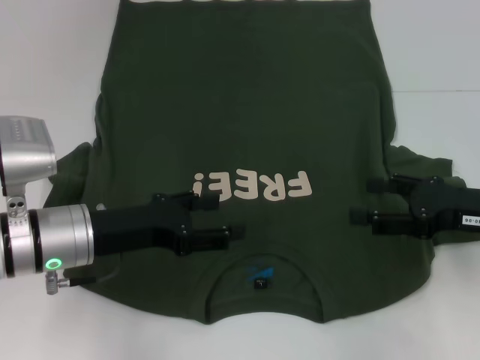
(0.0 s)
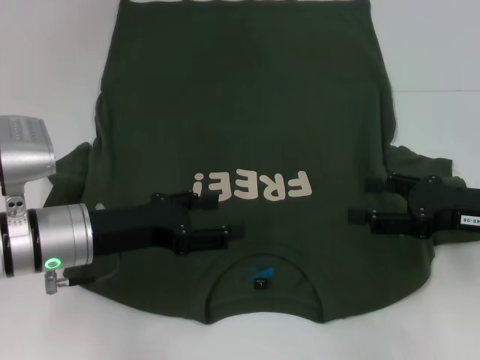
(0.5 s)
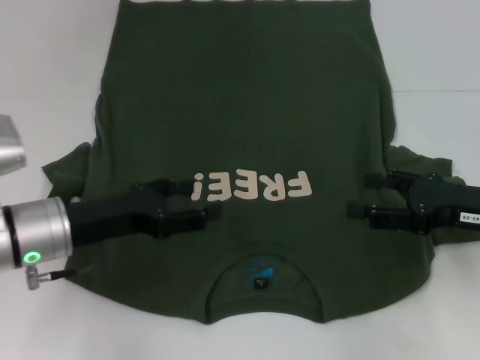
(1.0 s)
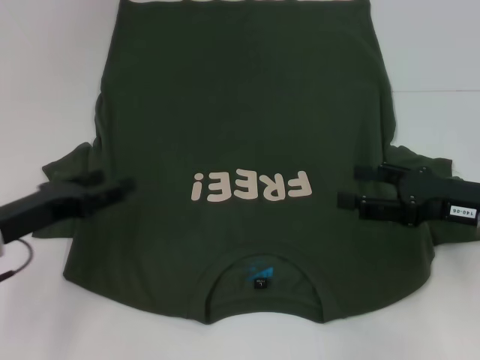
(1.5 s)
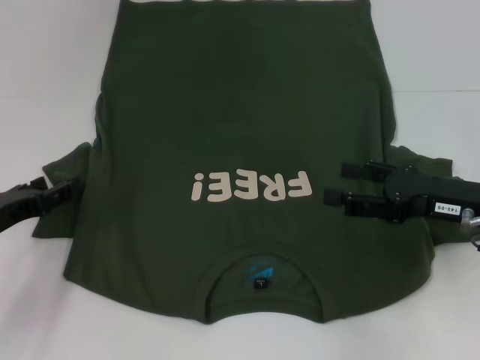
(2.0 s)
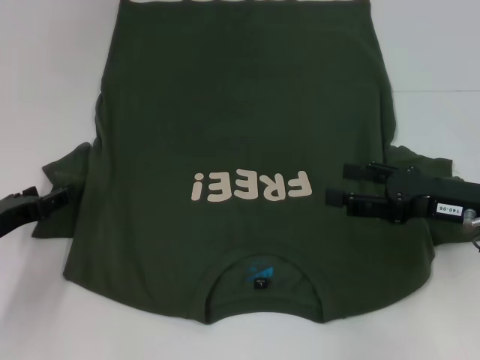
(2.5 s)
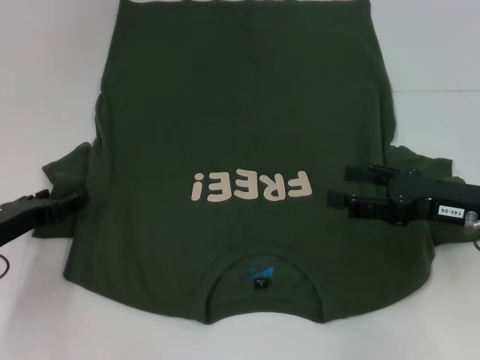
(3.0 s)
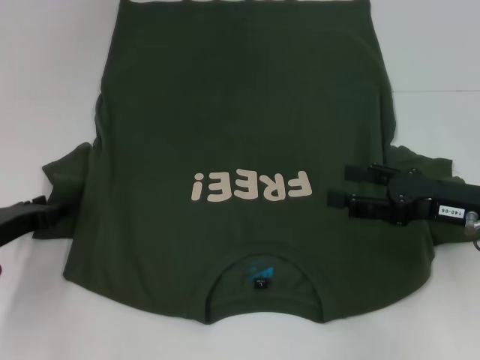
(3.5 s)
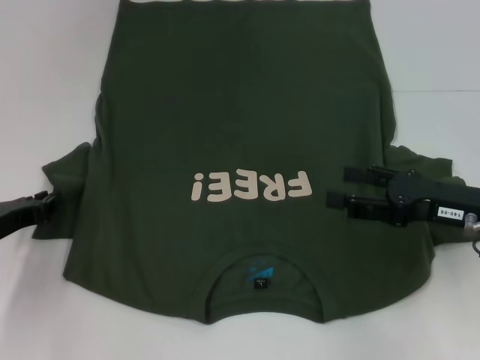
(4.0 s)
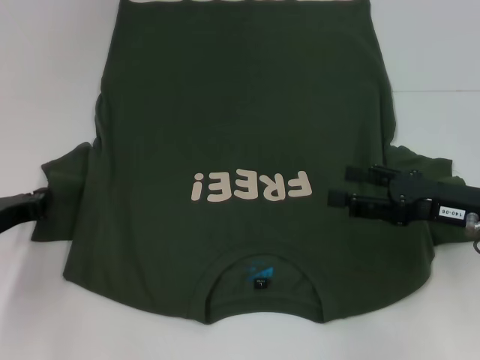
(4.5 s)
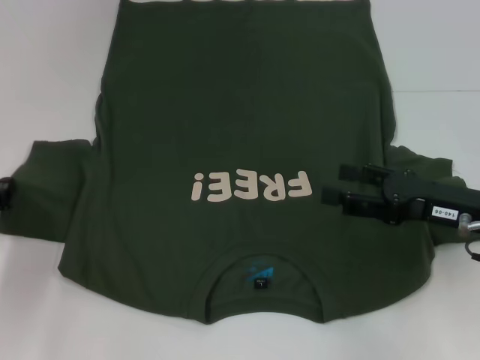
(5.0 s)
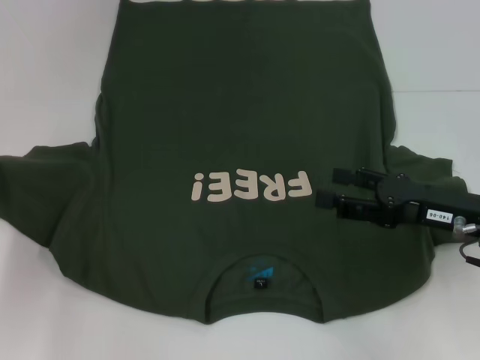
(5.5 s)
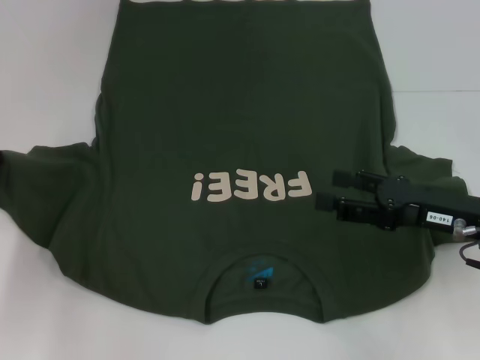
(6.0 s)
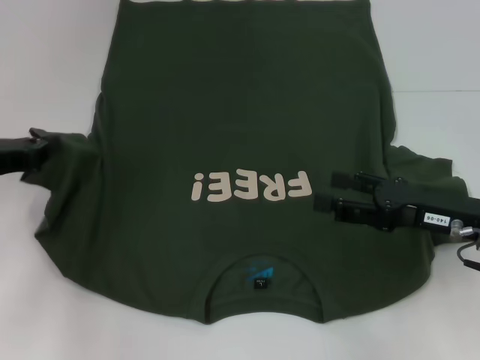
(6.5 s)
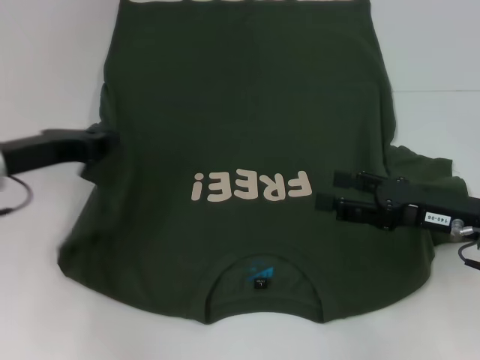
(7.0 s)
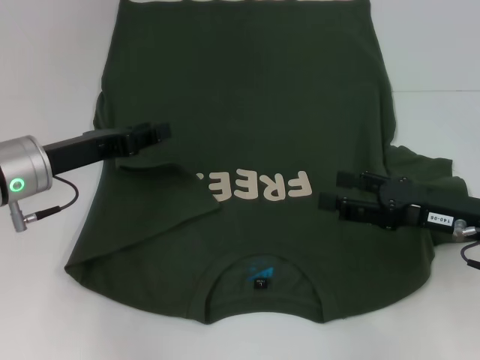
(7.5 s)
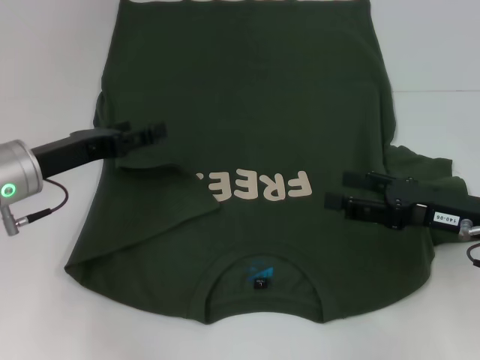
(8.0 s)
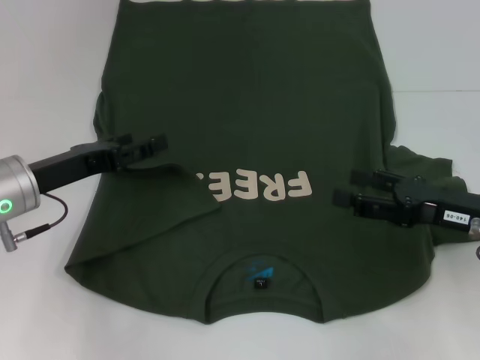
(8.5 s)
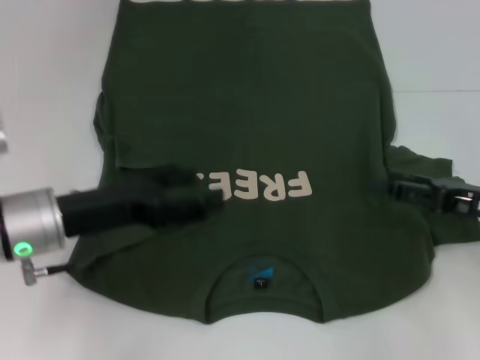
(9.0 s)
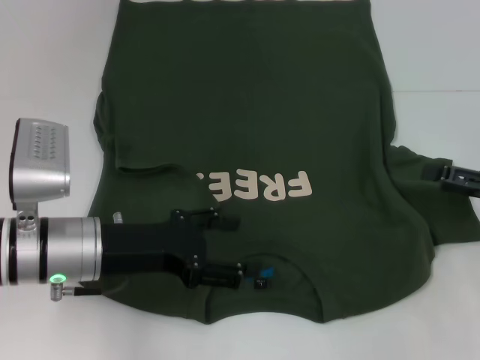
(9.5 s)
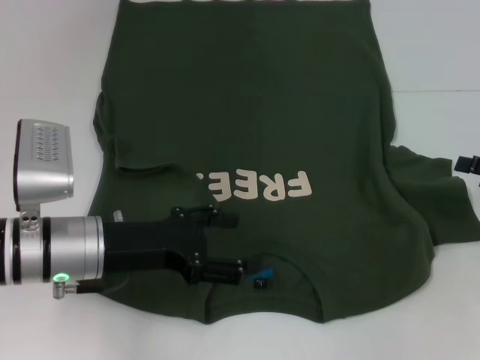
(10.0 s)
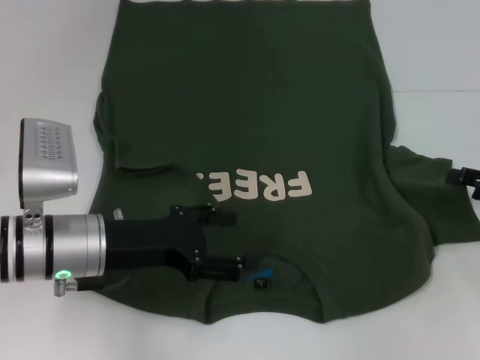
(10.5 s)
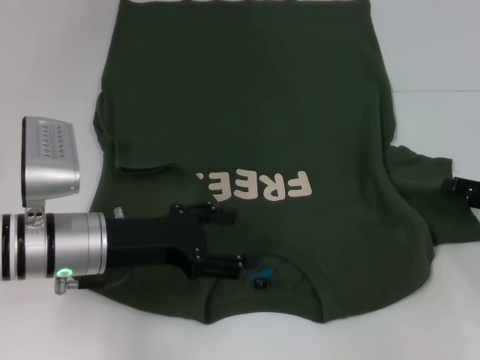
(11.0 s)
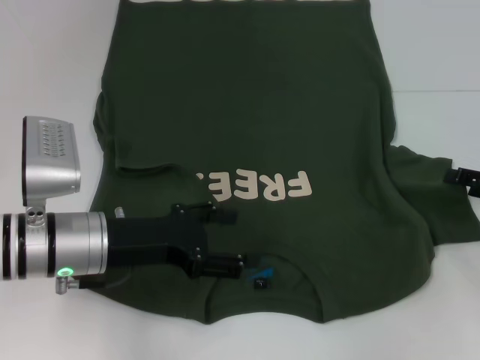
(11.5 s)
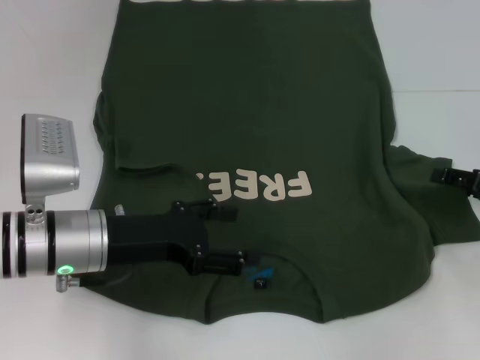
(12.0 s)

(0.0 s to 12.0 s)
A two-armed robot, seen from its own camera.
Step, 0.0 s - 8.0 s: Fold the bottom left sleeve with your left hand.
0.0 s - 2.0 s: The left gripper moves to the left, about 10 cm.
2.0 s - 4.0 s: The left gripper closes up.
4.0 s - 6.0 s: The left gripper changes place by approximately 5 cm, and closes its fingers.
6.0 s - 8.0 s: The left gripper shifts approximately 10 cm to the right, and opens.
8.0 s - 10.0 s: The left gripper moves to the right, approximately 5 cm. The right gripper travels to the right by approximately 10 cm.
10.0 s - 12.0 s: The grippers stay close to where they were, moving slightly.

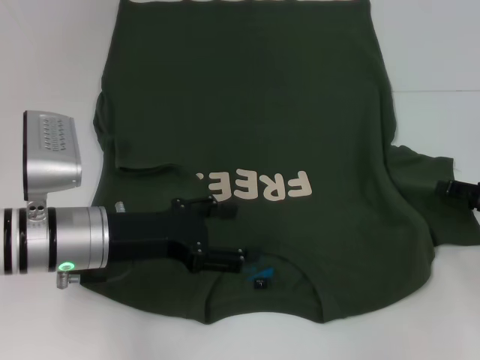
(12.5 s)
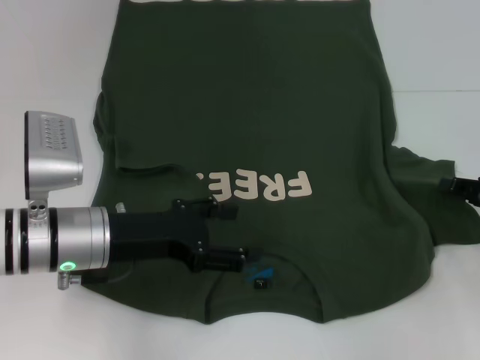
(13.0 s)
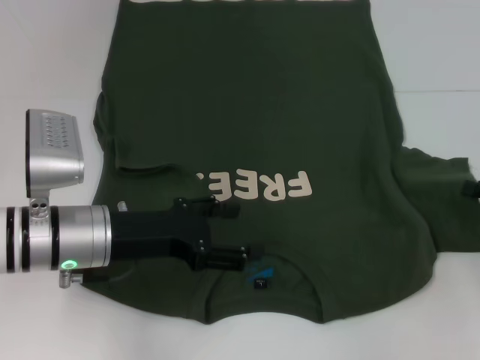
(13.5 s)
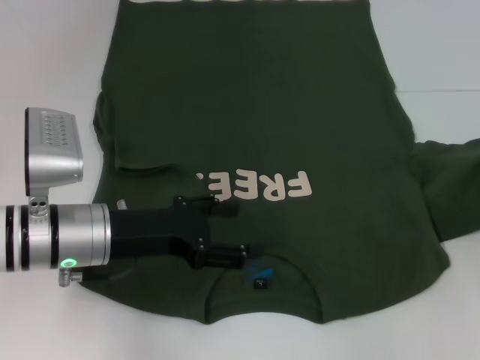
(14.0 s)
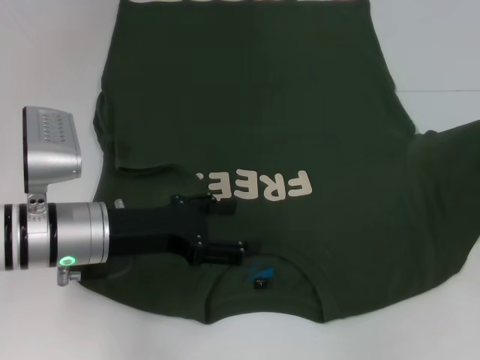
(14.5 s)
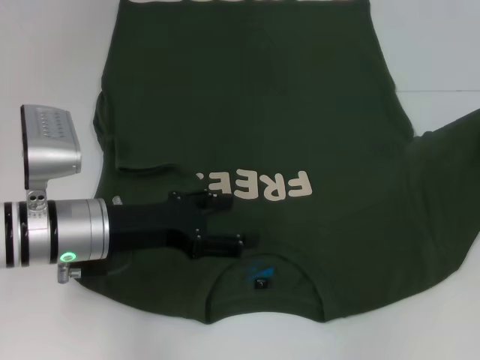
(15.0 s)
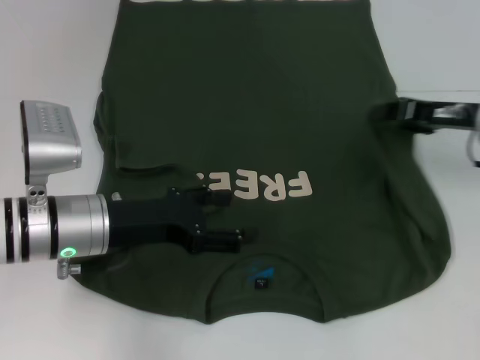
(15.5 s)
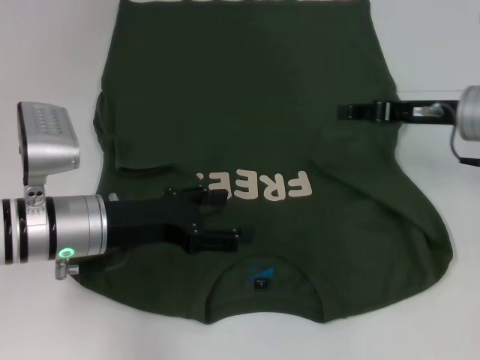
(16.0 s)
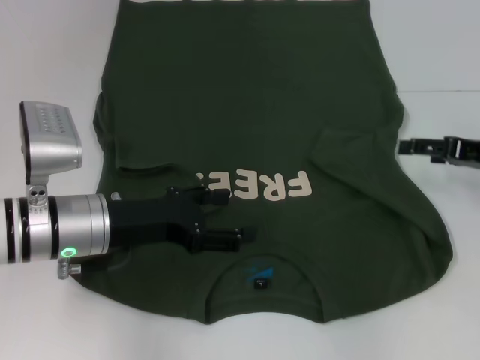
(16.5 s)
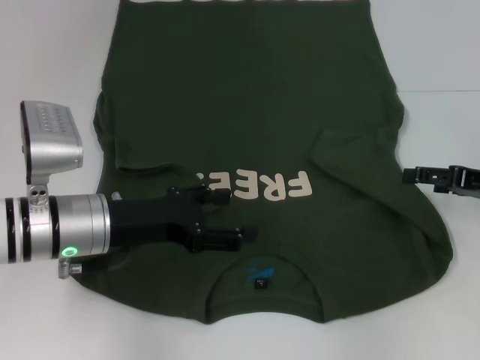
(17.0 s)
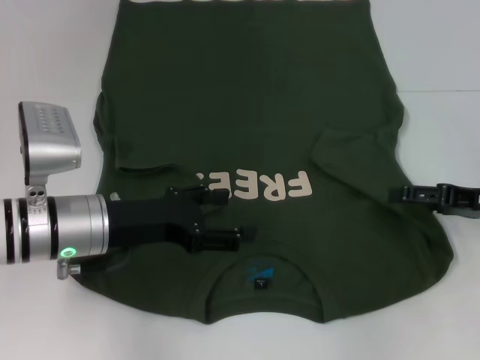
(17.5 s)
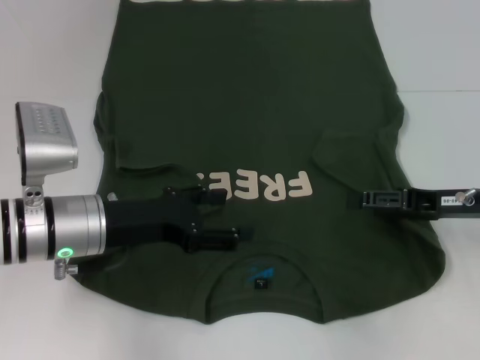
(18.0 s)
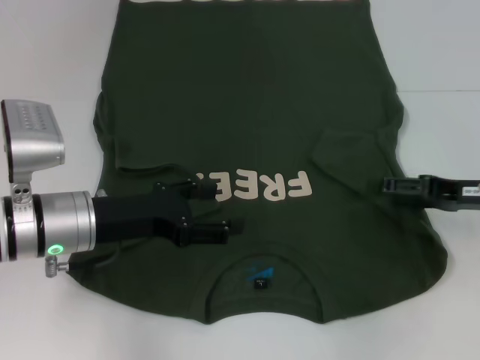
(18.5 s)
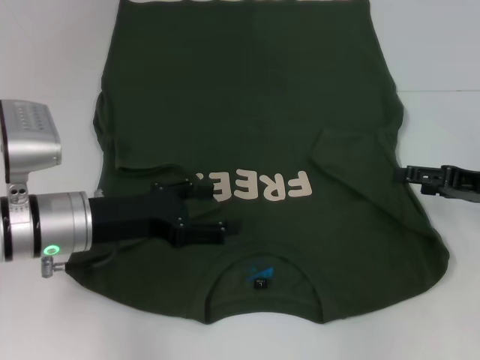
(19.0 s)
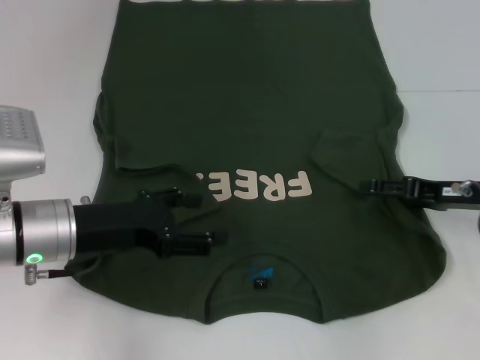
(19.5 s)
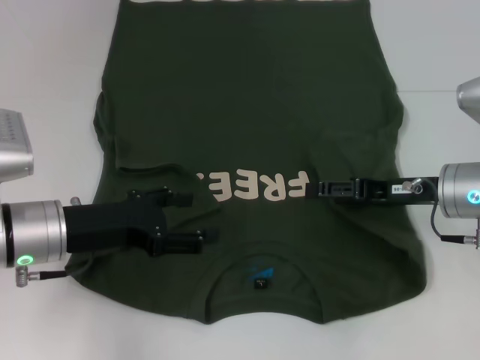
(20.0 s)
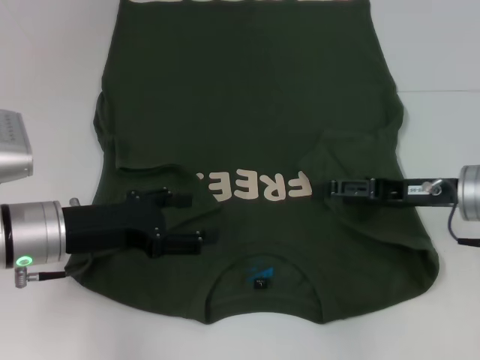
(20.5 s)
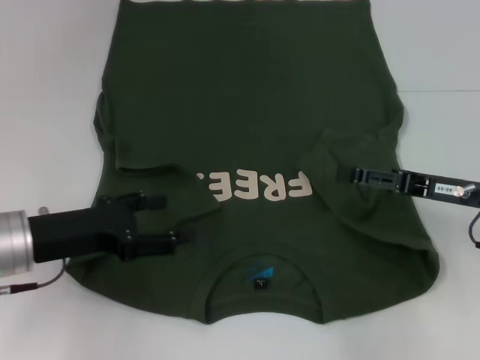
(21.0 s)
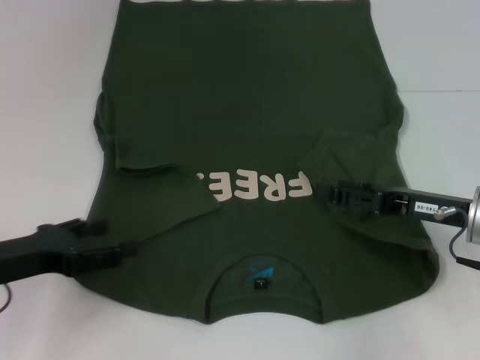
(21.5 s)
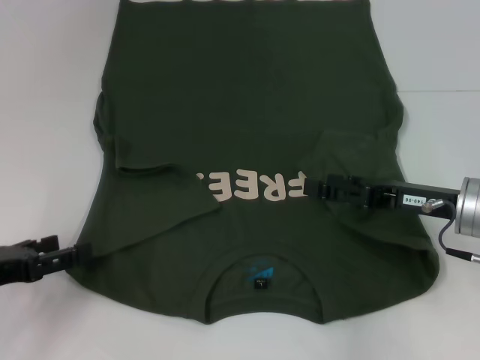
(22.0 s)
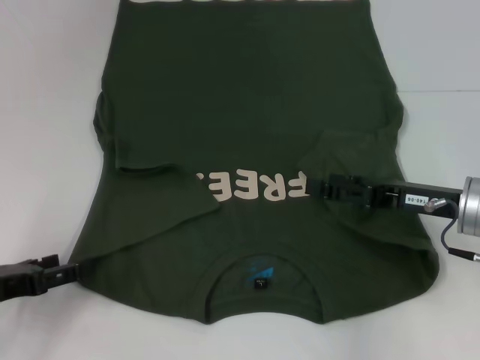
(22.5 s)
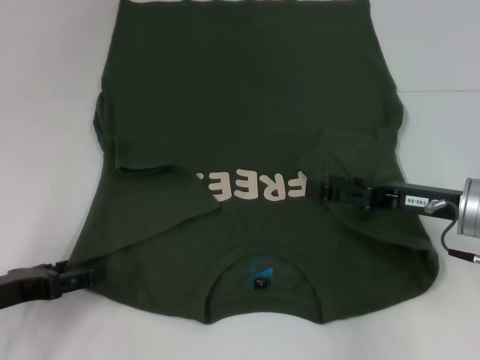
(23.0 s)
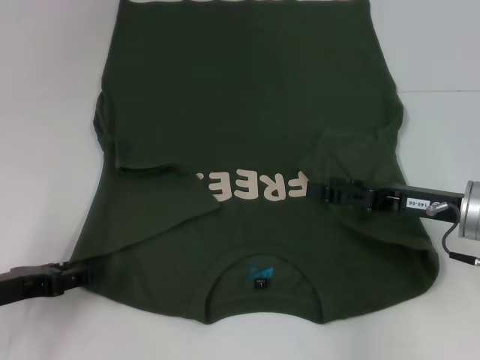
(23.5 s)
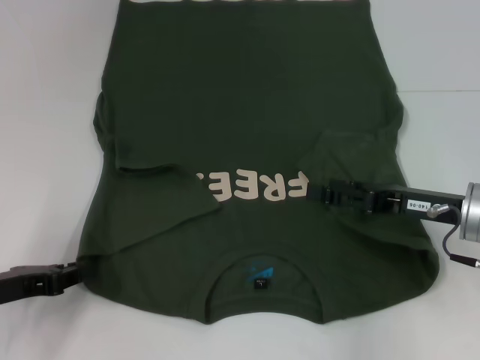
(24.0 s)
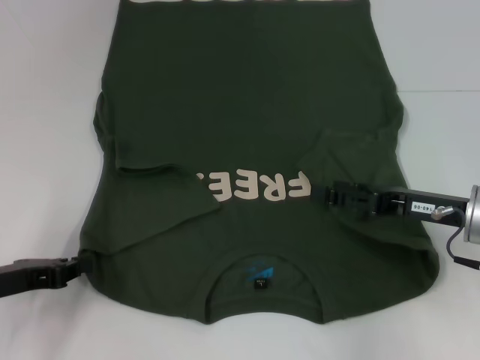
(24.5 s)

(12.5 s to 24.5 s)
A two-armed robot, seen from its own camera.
Step, 12.5 s - 16.0 s: Fold the bottom right sleeve with your right hand.
Step, 16.5 s - 24.0 s: Grab the bottom left corner with your left hand.
12.5 s - 14.5 s: The right gripper travels upward by about 5 cm, and closes up.
14.5 s - 16.5 s: The right gripper is displaced to the left by roughly 5 cm, and opens its fingers.
16.5 s - 18.5 s: The grippers make only small movements.
18.5 s - 20.5 s: The right gripper shifts roughly 5 cm to the left.
20.5 s - 22.5 s: The left gripper travels to the left and backward by roughly 10 cm.
22.5 s - 24.5 s: The left gripper closes its fingers.

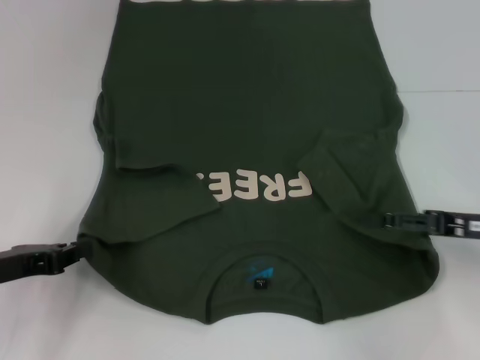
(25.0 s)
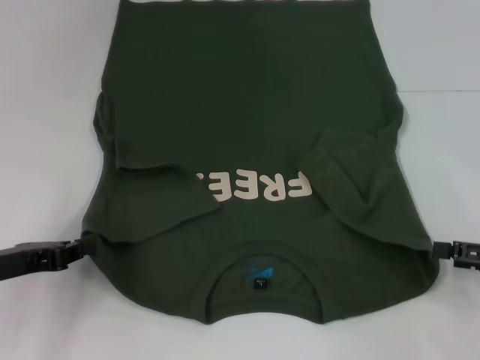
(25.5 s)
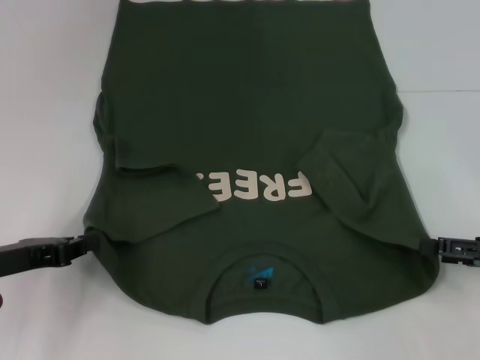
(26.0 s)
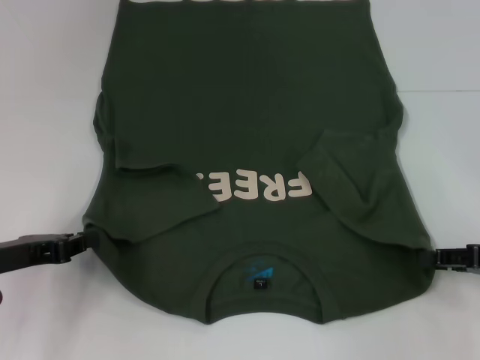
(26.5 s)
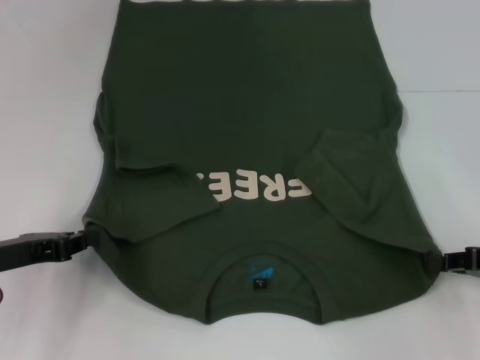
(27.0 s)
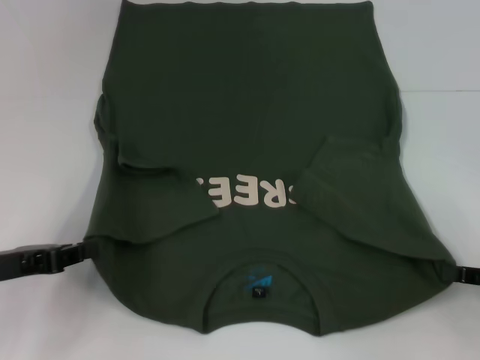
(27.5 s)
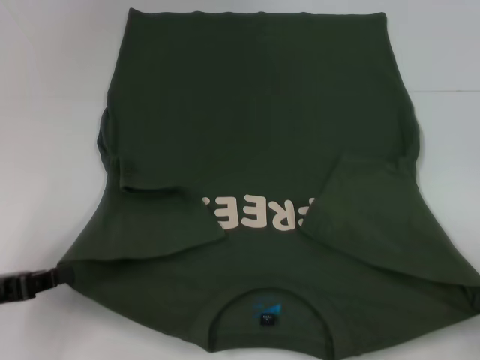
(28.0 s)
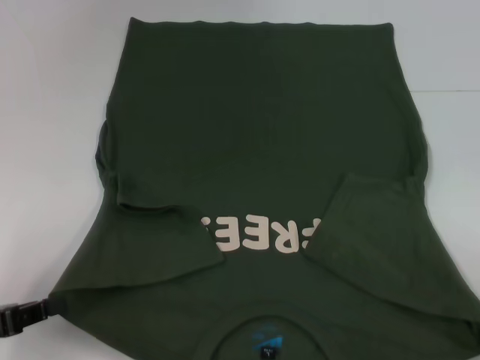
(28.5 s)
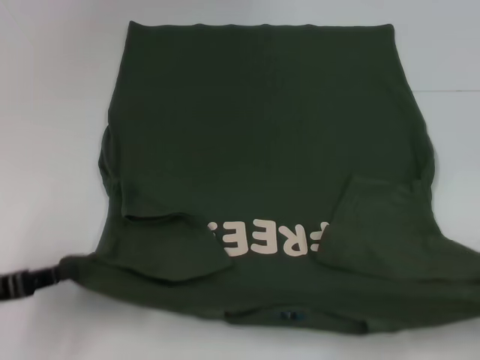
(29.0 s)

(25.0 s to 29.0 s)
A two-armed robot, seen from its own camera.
Step, 25.0 s - 27.0 s: Grab the bottom right corner with your right hand.
25.0 s - 27.0 s: The right gripper changes place by about 5 cm, and closes its fingers.
27.0 s - 29.0 s: The right gripper goes roughly 15 cm backward and to the right. Meanwhile the left gripper shifts approximately 5 cm backward.
